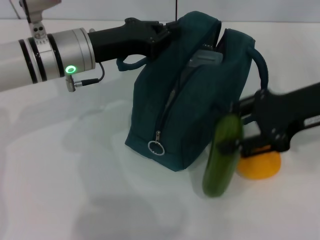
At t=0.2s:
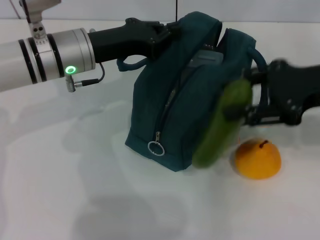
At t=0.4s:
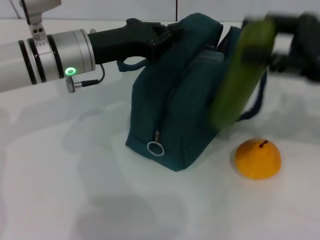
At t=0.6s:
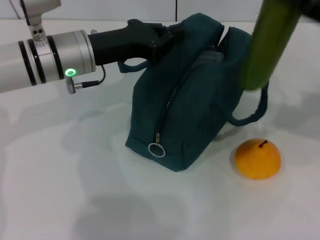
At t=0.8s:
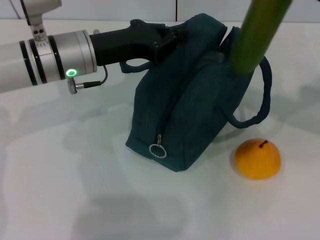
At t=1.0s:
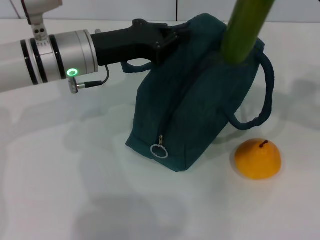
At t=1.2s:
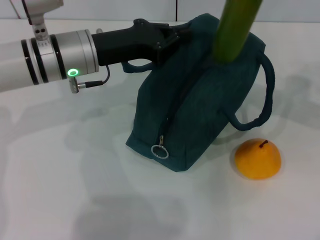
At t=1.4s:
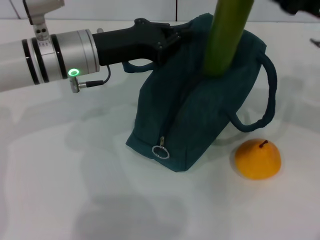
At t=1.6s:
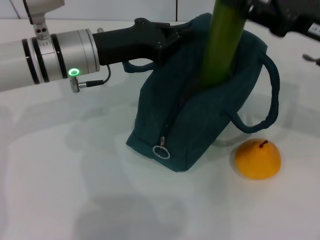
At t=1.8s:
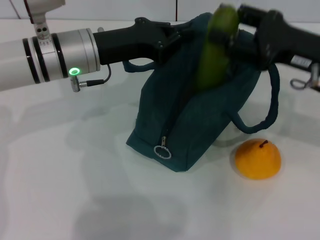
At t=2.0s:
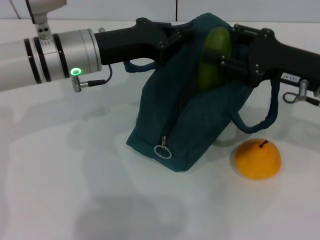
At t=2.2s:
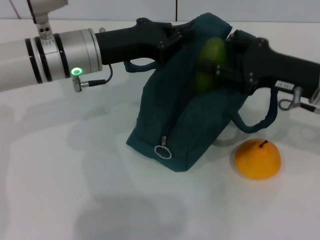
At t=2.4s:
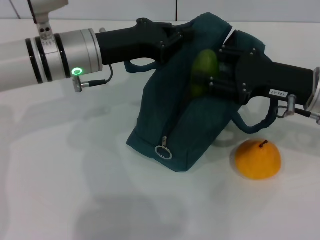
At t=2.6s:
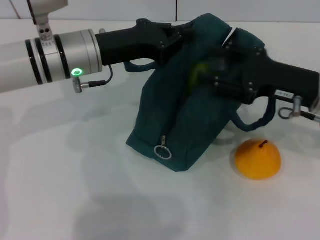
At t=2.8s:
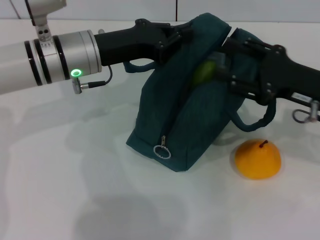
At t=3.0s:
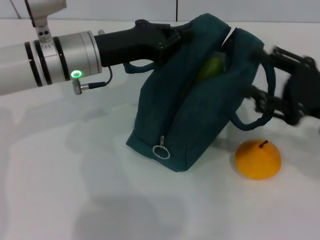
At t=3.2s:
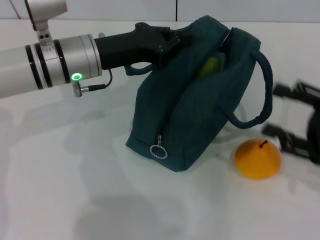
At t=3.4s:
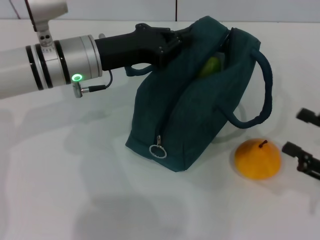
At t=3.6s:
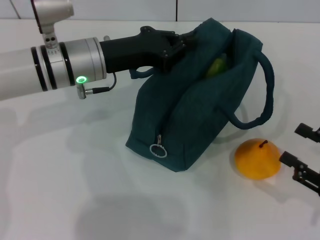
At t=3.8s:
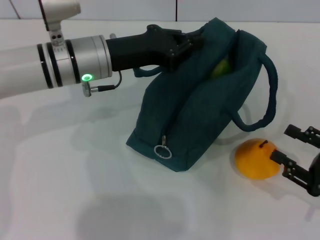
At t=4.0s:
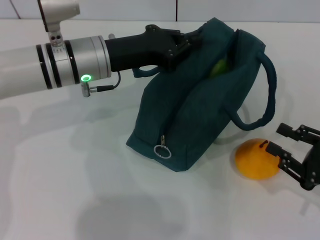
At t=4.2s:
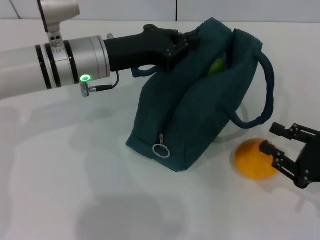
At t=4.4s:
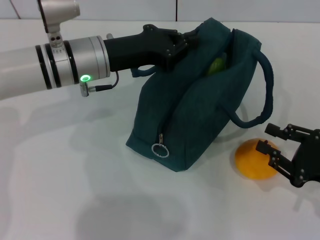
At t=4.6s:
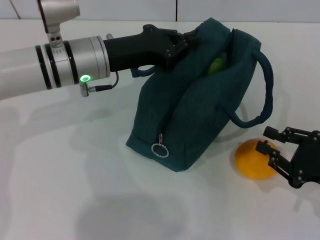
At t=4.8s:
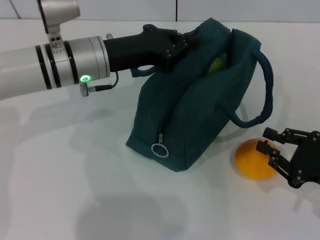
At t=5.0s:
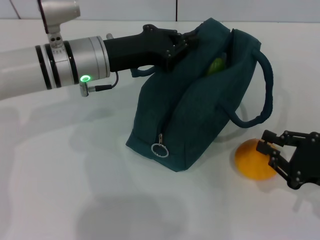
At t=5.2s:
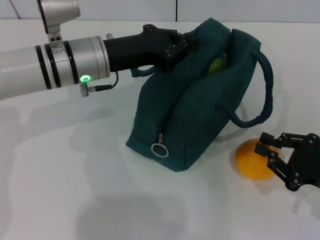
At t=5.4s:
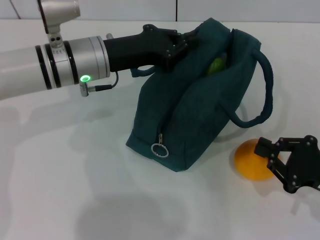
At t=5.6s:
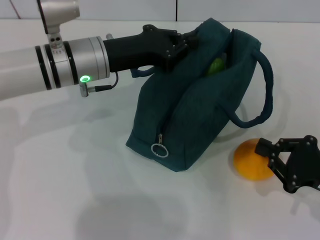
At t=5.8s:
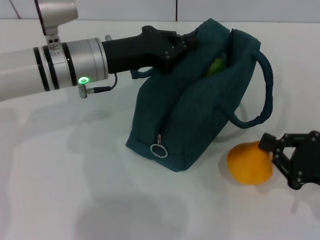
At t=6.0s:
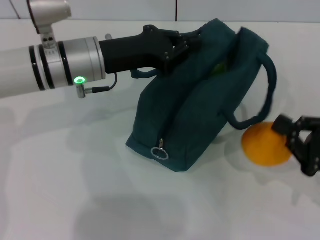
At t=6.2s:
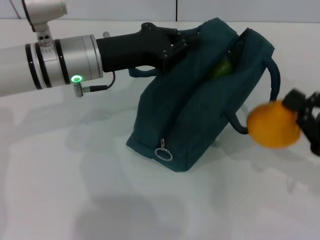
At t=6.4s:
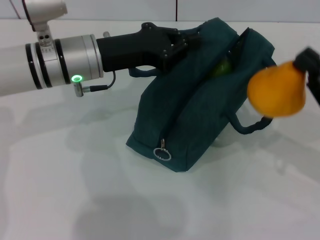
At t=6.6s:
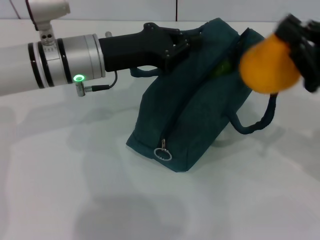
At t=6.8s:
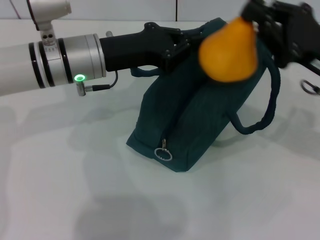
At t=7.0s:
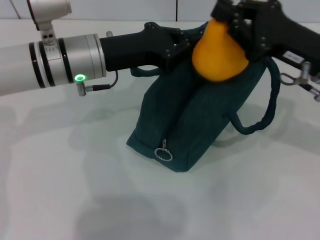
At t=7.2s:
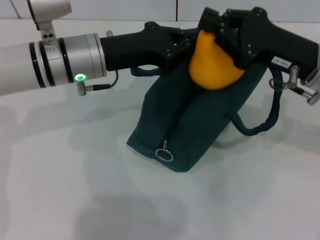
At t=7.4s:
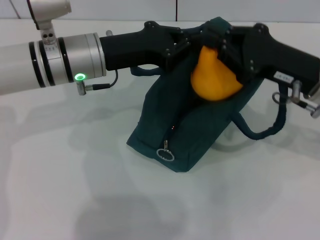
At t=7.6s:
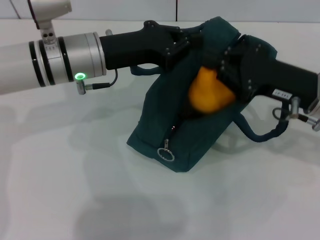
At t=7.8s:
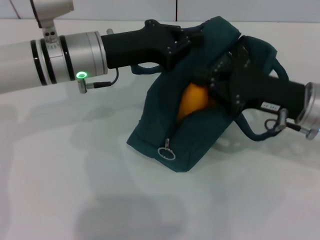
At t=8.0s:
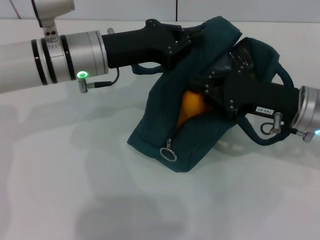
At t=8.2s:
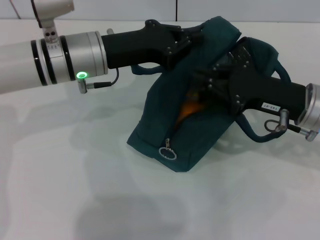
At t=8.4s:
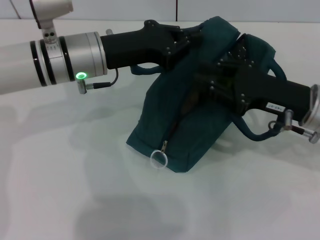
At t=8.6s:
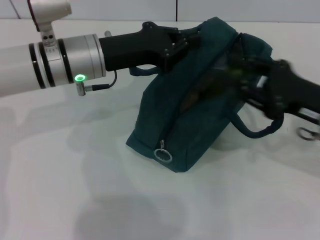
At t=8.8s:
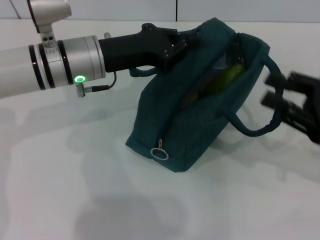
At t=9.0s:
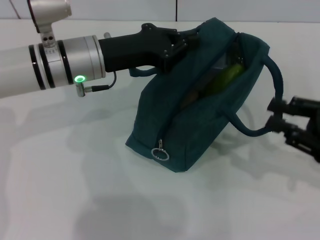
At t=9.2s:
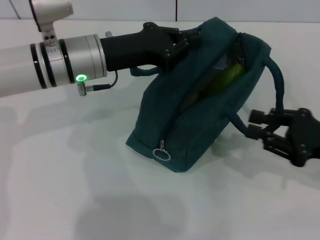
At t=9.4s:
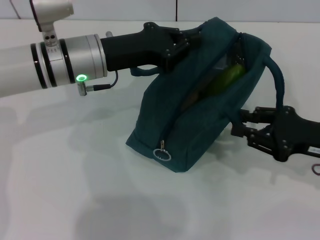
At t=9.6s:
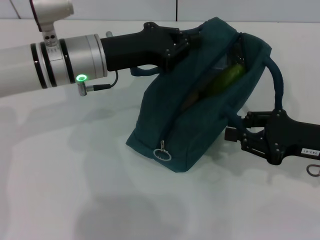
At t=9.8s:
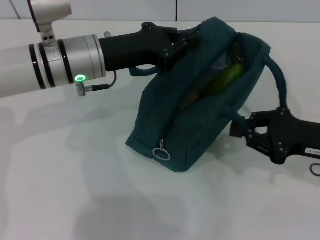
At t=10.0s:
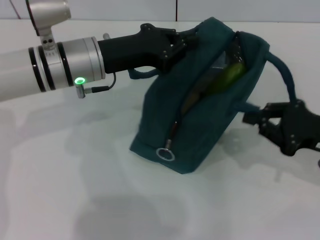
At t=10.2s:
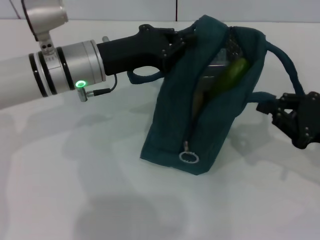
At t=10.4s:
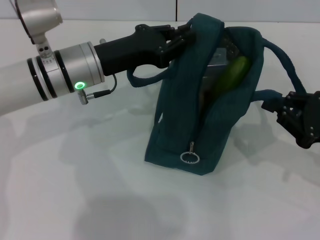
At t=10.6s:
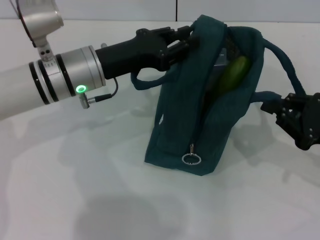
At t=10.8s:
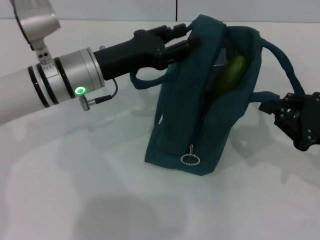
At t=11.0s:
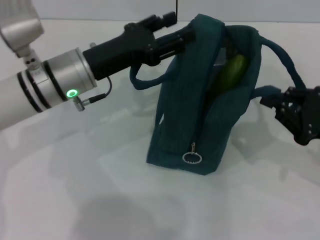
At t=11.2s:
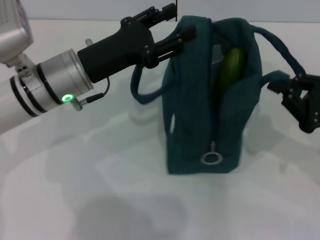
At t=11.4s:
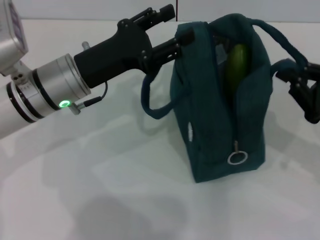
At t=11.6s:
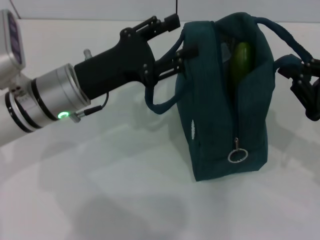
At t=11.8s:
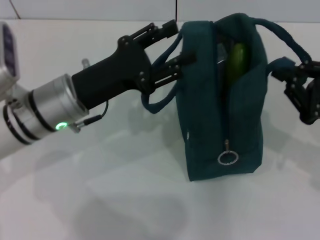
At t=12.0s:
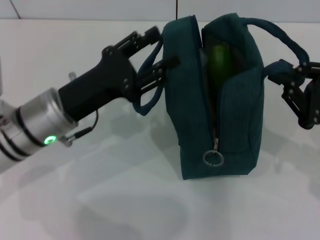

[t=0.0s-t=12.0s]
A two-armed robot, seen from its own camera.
Step, t=0.0s to t=2.8s: Put the cucumber into the lunch bag with your right hand.
Step, t=3.0s to t=5.2s: Grab the pear with your right hand.
Step, t=8.8s to t=11.0s: Hold the lunch bag with your left hand.
t=1.6s to t=3.0s: The right gripper goes approximately 10 cm backward and downward.
t=3.0s to t=4.4s: The right gripper moves downward and backward, approximately 10 cm.
t=4.4s to t=6.0s: The right gripper closes.
t=6.0s to t=7.6s: The right gripper is displaced forward, to the left and upward by some 15 cm.
t=7.6s to t=9.0s: The right gripper travels to the right and backward by about 10 cm.
t=9.0s to t=10.4s: The right gripper closes up.
t=10.4s to t=12.0s: The left gripper travels backward by roughly 5 cm, and opens.

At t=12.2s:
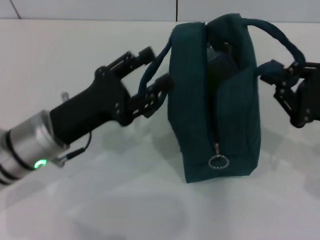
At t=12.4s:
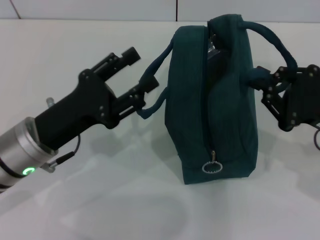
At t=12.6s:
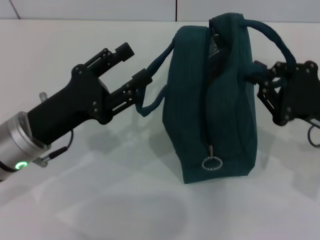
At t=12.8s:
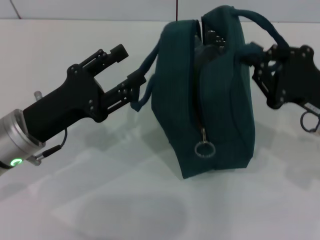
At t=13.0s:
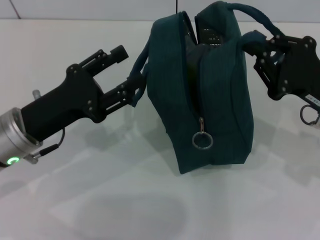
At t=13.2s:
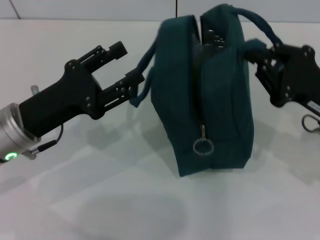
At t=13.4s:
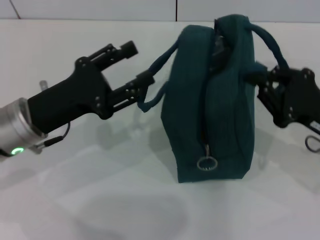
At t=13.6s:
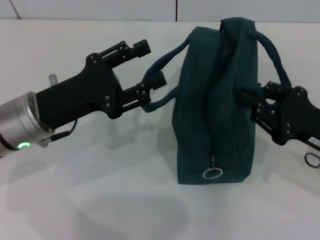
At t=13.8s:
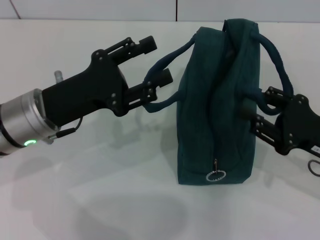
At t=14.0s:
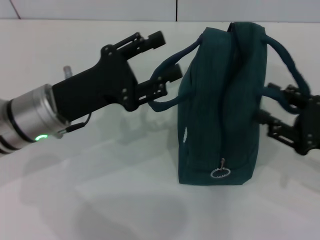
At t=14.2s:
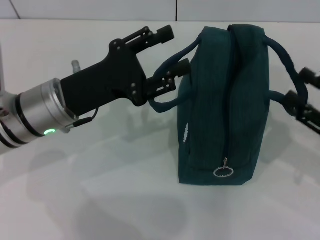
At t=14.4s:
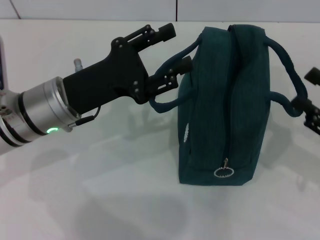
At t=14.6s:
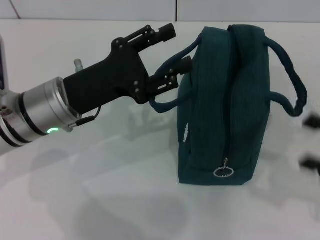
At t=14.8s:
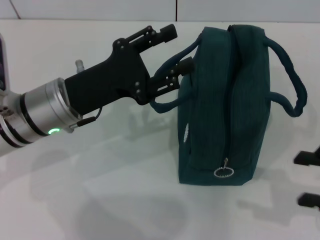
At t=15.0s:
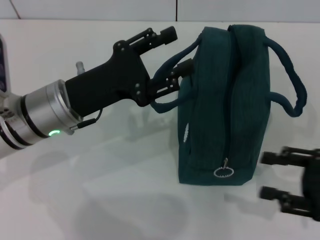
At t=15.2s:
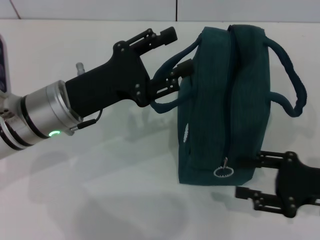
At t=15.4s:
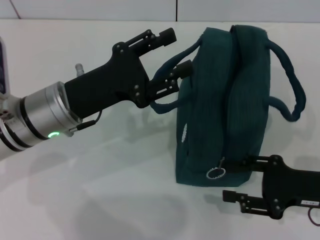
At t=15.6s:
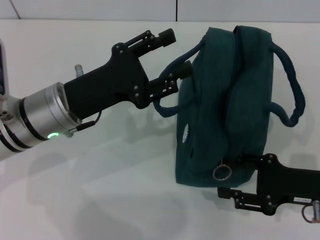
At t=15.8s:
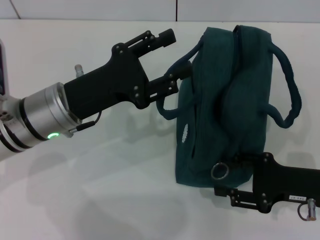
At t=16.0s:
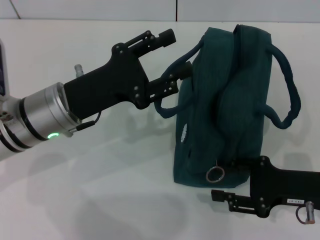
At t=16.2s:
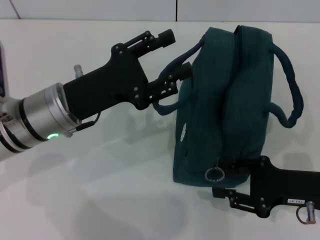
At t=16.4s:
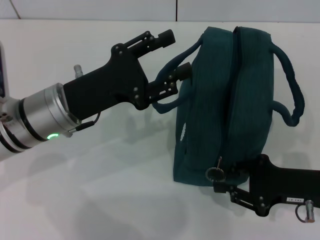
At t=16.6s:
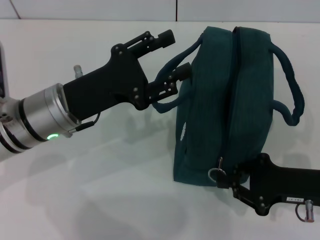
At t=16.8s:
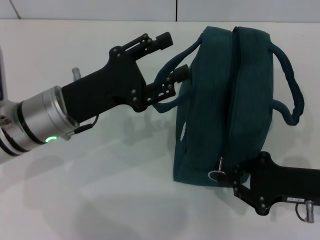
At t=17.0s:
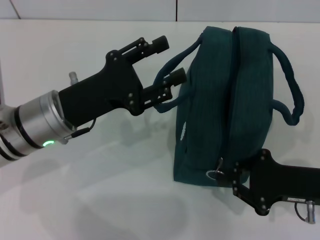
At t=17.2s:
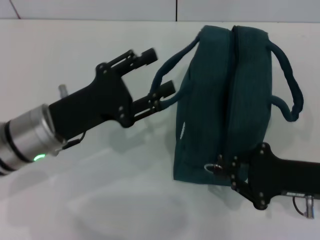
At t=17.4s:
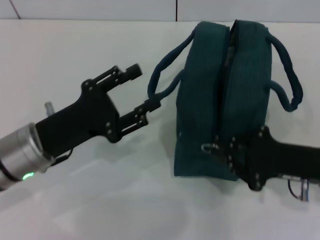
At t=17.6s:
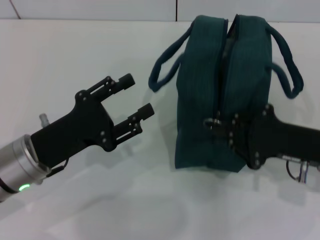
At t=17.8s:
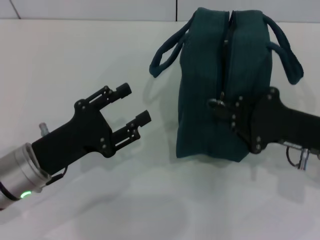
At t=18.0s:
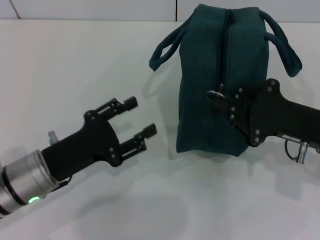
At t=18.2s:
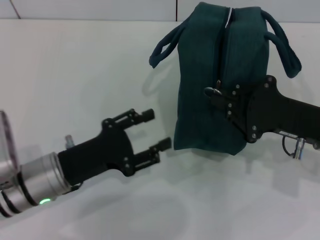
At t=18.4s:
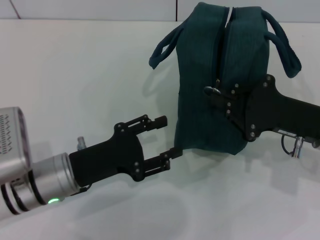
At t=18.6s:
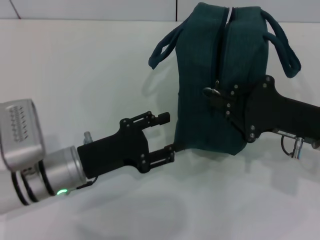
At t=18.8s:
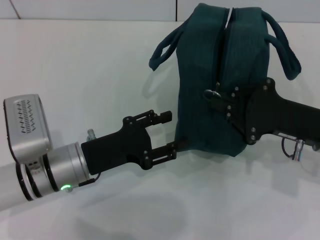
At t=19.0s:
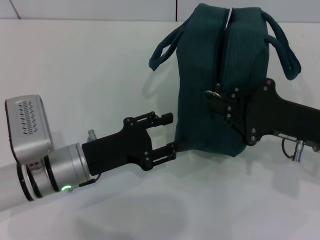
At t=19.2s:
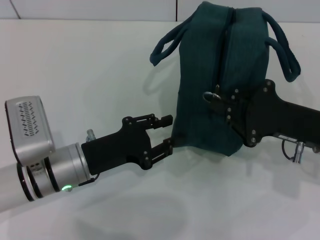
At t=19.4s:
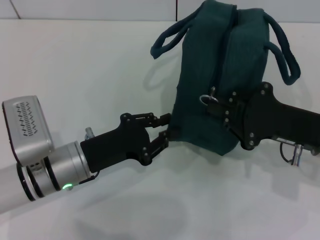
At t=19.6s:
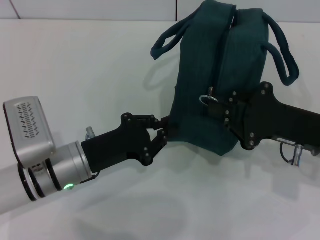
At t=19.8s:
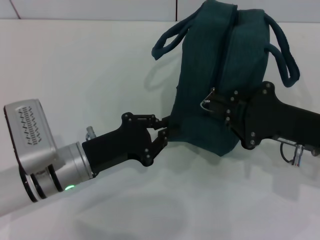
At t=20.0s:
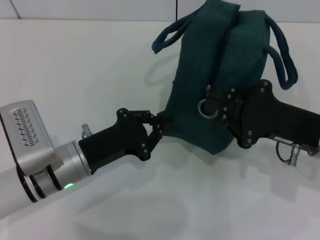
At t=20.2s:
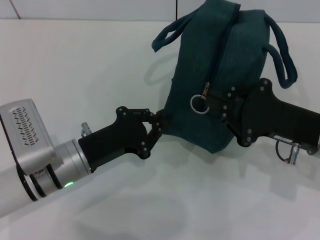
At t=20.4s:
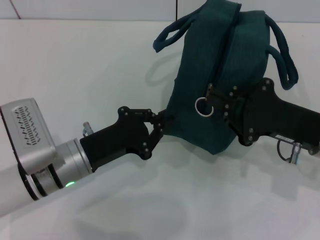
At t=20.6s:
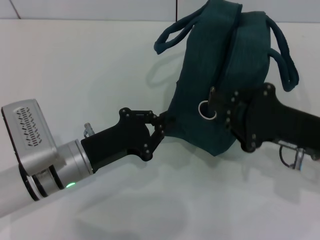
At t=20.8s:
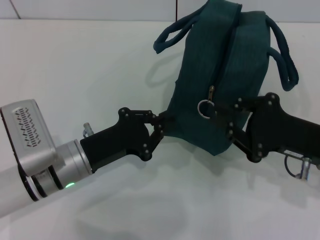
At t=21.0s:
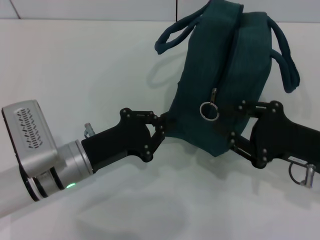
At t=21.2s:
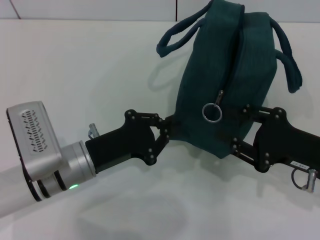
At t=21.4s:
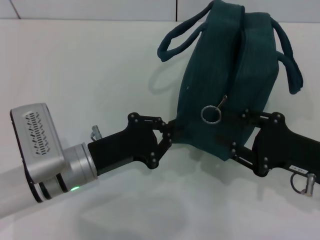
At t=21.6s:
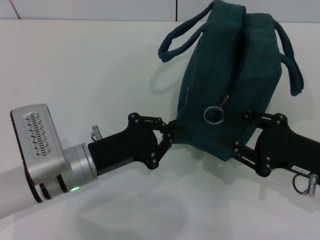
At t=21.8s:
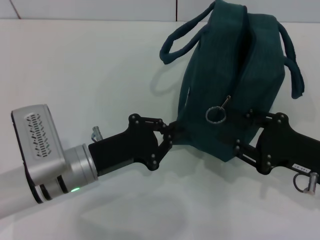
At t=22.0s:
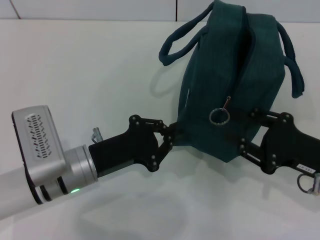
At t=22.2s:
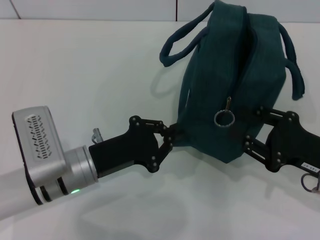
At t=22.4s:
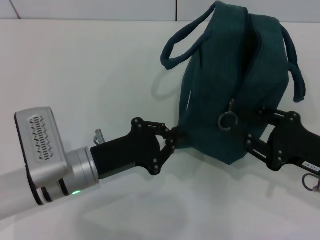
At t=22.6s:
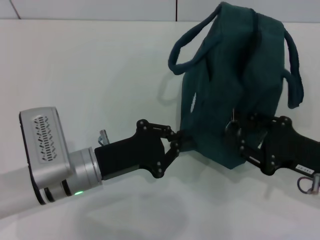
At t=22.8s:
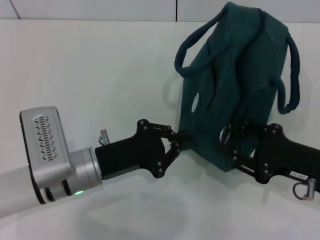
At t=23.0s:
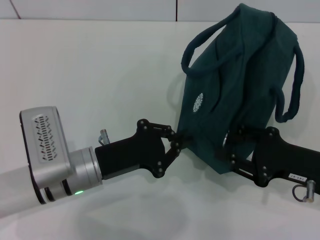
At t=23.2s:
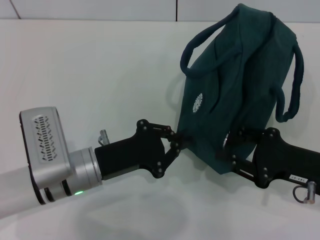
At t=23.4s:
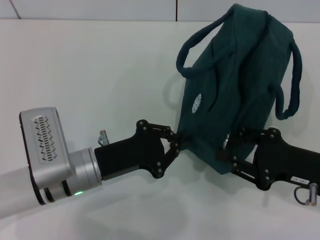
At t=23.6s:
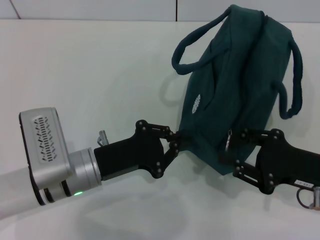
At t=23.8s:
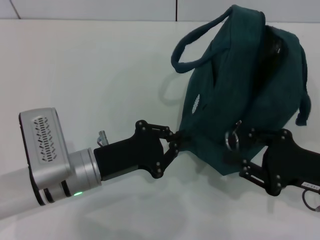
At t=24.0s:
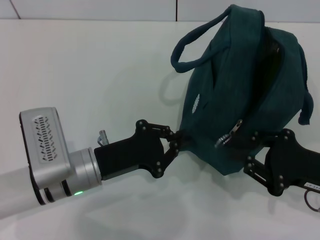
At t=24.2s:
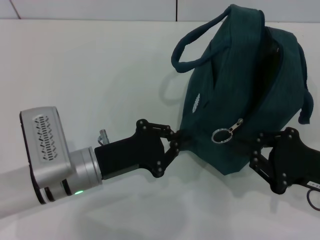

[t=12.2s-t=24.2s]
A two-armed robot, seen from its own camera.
Step, t=12.2s to t=14.0s: Hold the lunch bag with your right hand.
t=13.8s to t=15.2s: The right gripper opens up.
t=15.2s to t=16.6s: The right gripper closes up.
t=16.6s to t=18.2s: The left gripper travels downward and backward by approximately 10 cm, while the right gripper changes place by roughly 5 cm.
t=18.2s to t=19.8s: The left gripper closes up.
t=19.8s to t=21.2s: The grippers stay close to where they were, moving slightly.
t=21.2s to t=24.2s: The grippers stay close to where they were, moving slightly.
